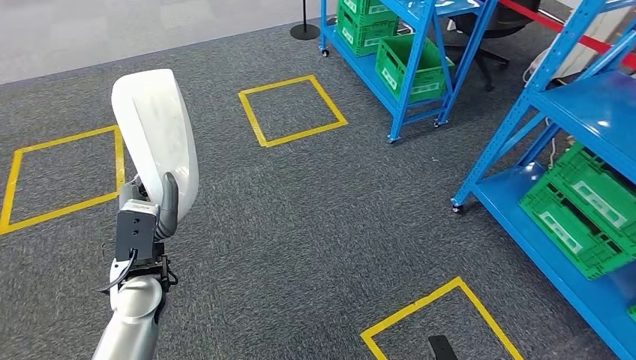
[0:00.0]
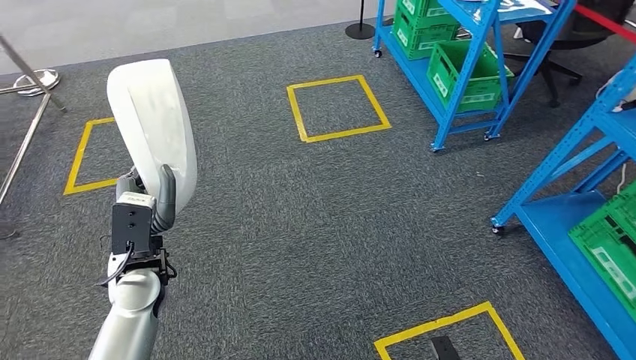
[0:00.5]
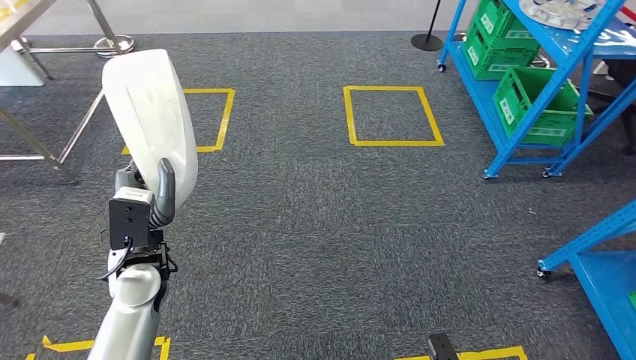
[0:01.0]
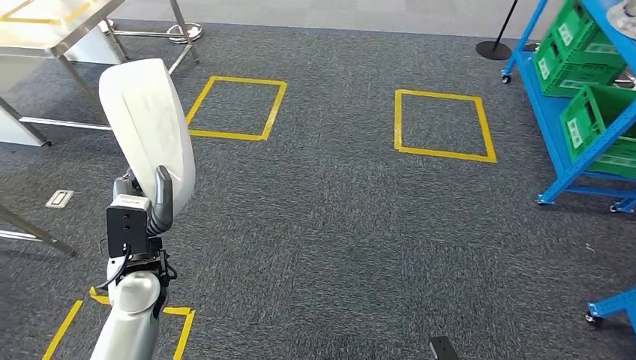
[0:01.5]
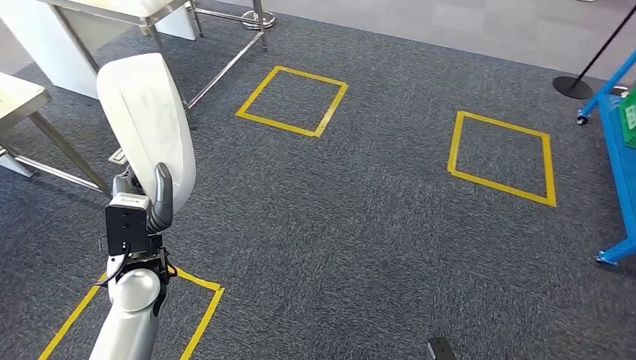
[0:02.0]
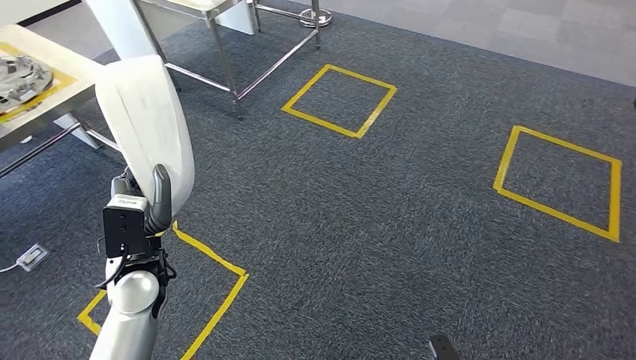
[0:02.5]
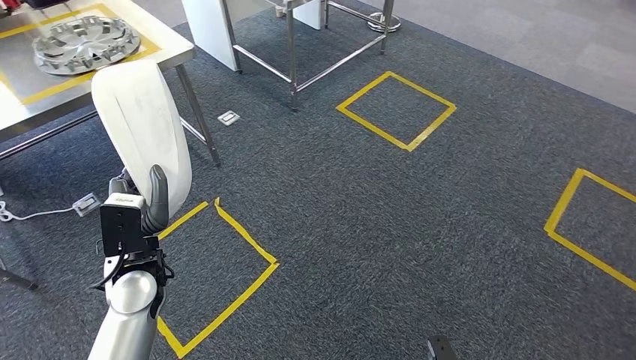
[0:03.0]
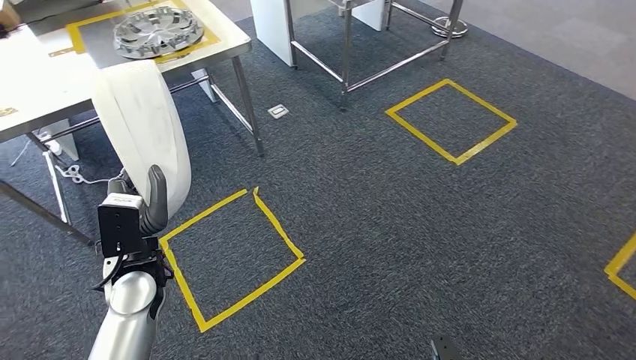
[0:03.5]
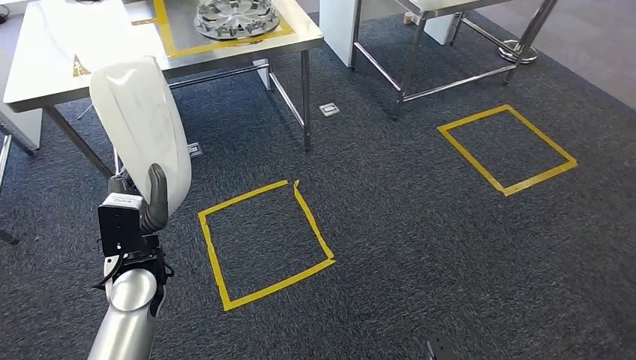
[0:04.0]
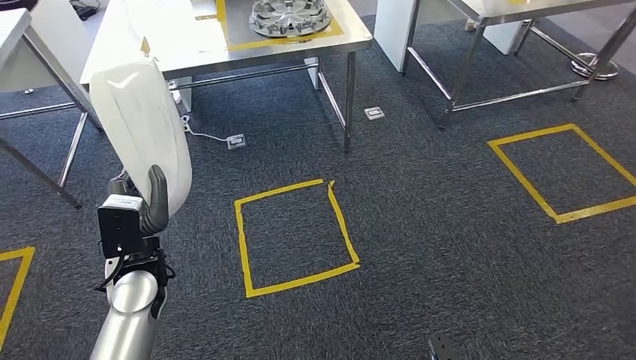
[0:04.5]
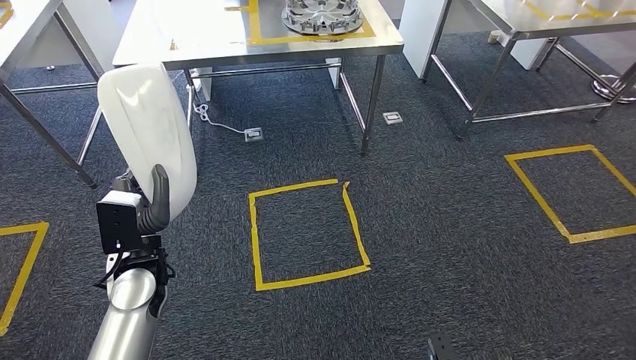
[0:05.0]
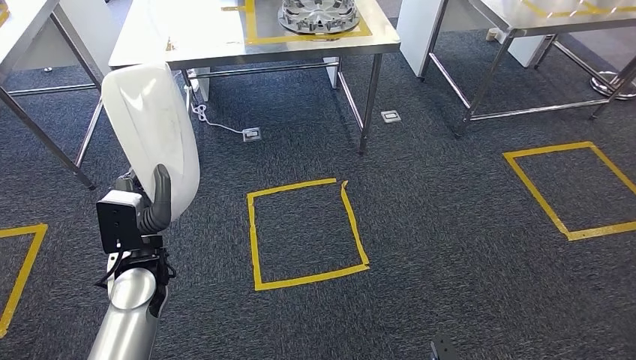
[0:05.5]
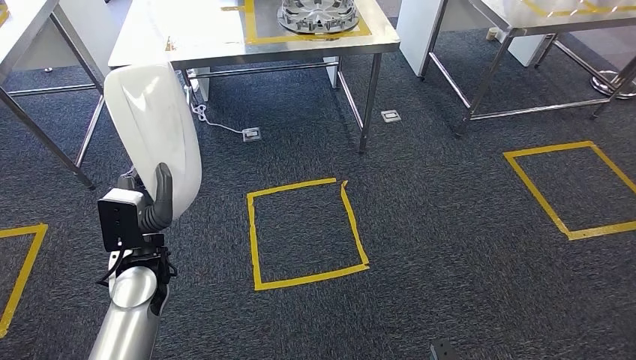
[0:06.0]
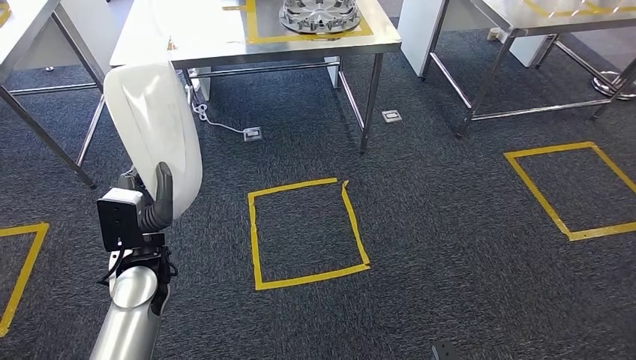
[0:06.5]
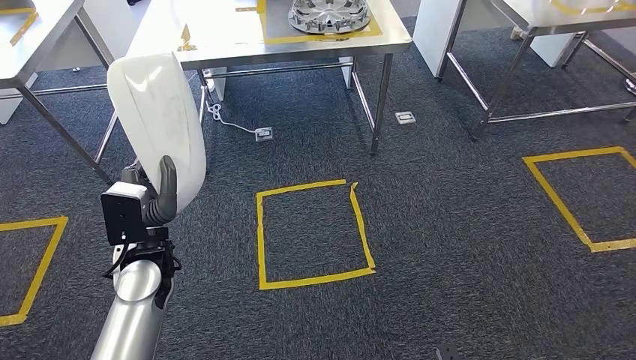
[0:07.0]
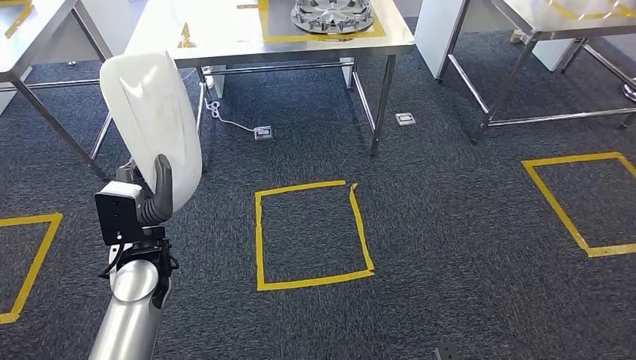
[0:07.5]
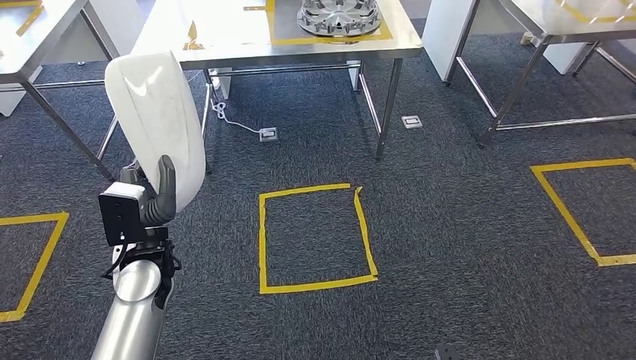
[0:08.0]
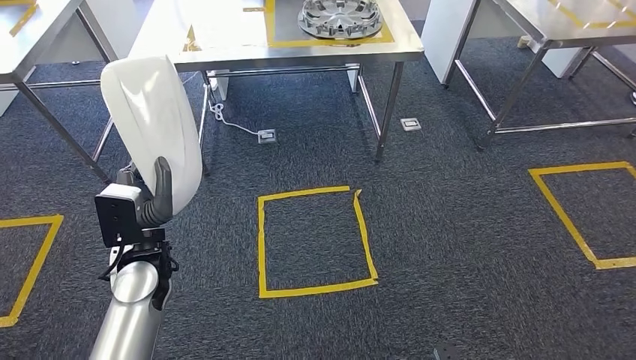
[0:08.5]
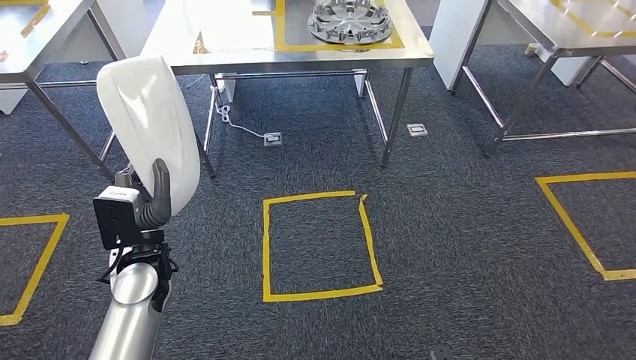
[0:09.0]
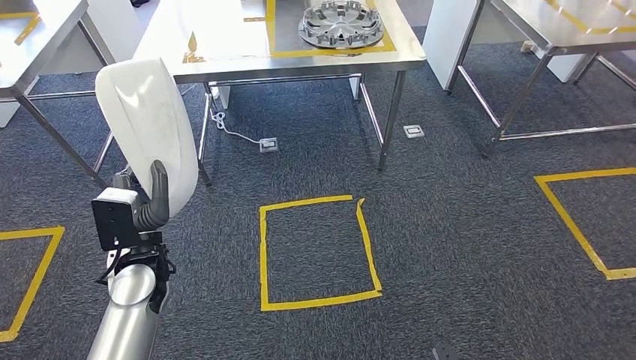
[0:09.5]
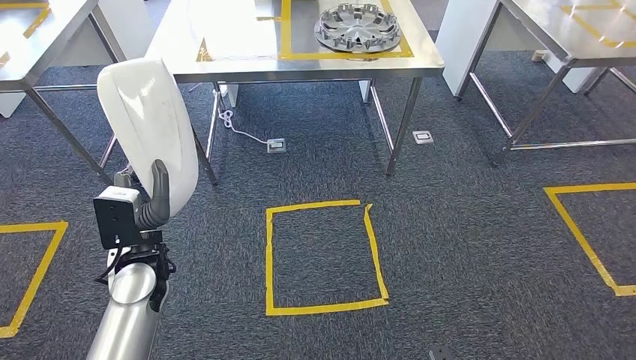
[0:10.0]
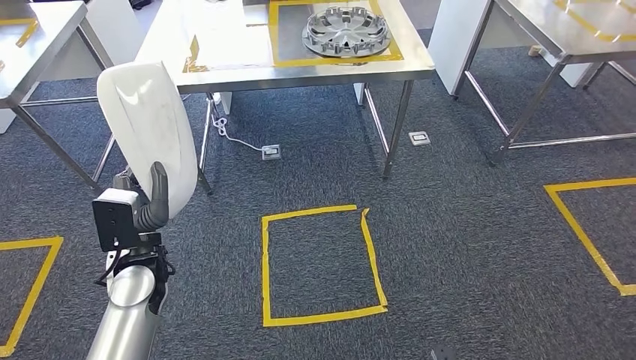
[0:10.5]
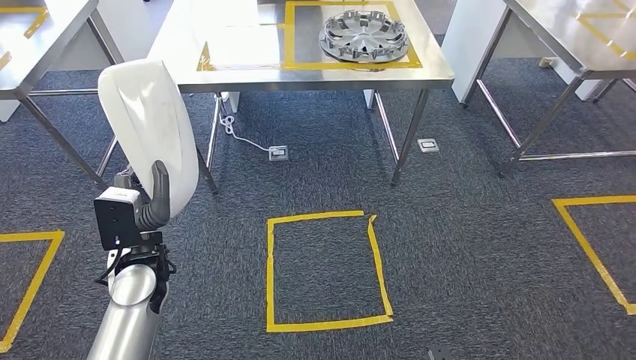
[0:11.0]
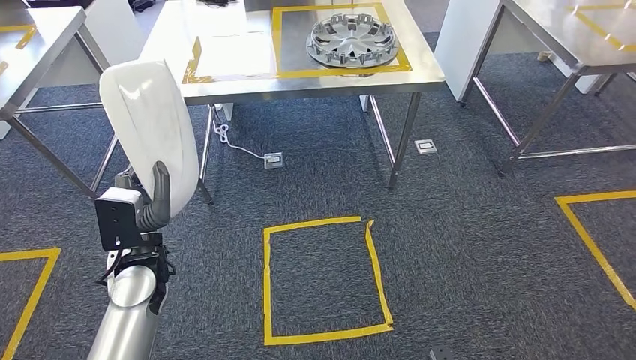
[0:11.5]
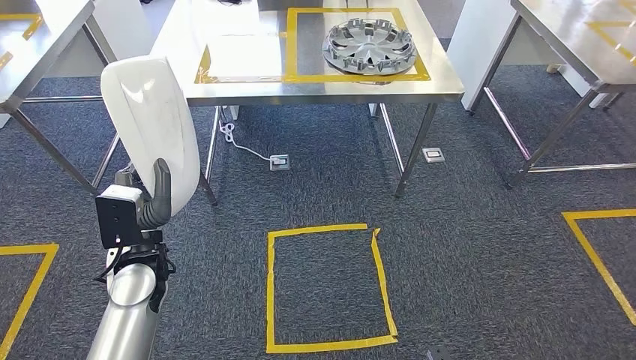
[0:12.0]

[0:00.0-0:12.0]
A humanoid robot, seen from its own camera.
Step, 0:00.0 to 0:05.0: Move the large material to the workbench.

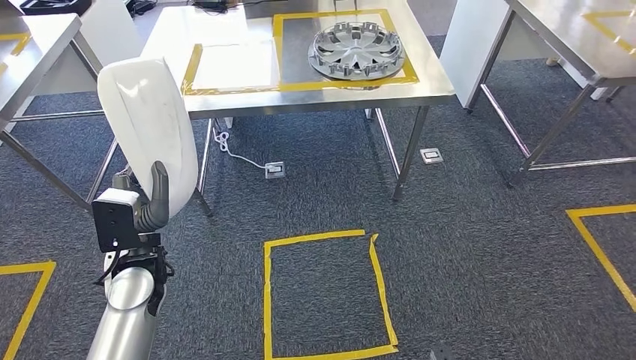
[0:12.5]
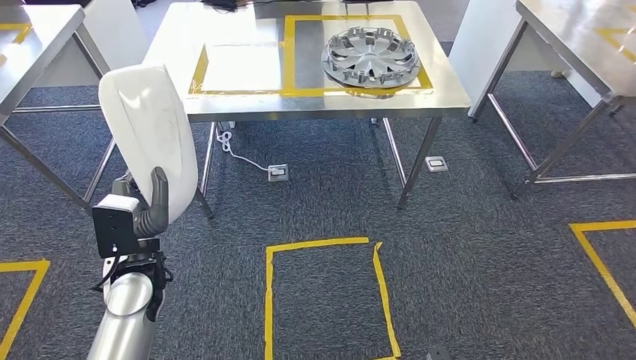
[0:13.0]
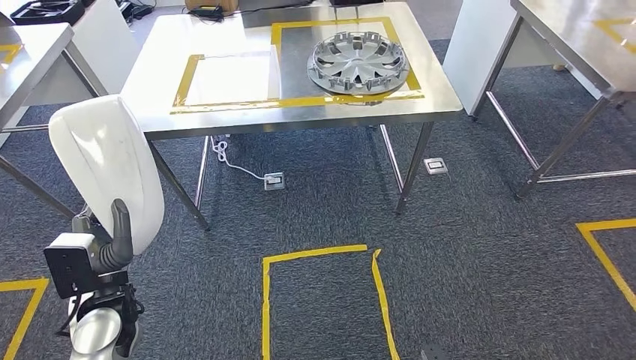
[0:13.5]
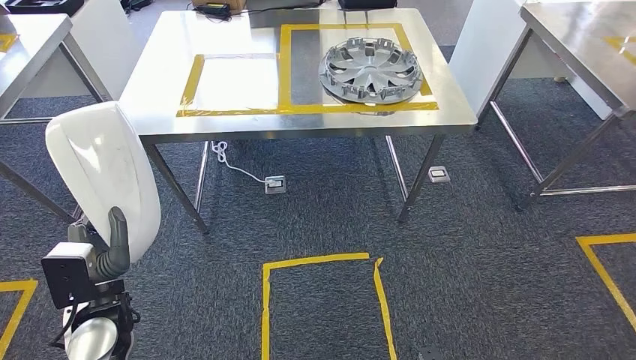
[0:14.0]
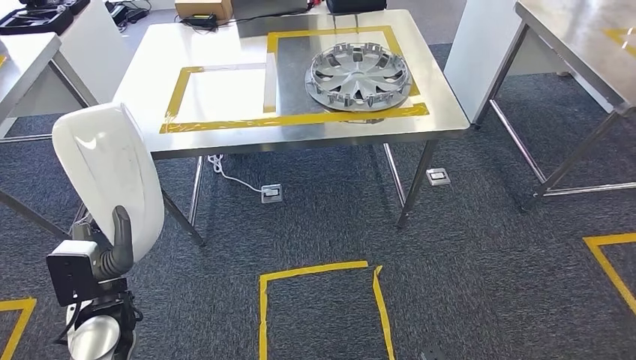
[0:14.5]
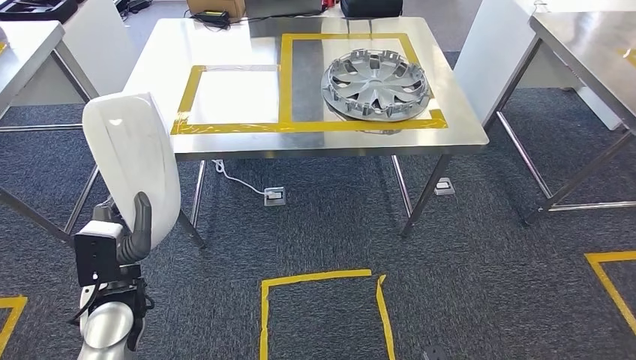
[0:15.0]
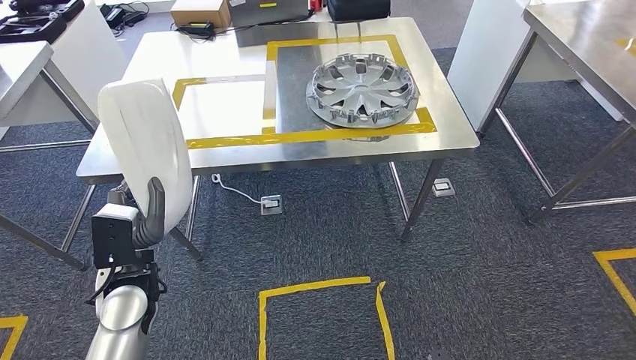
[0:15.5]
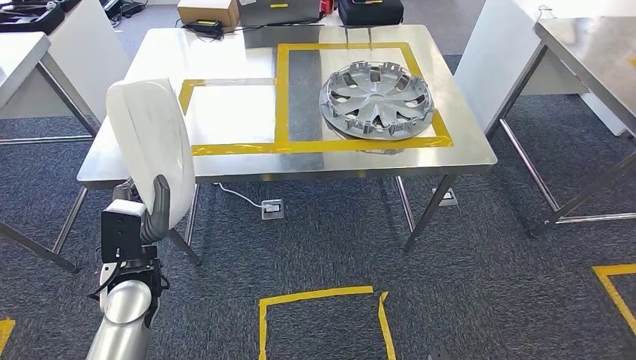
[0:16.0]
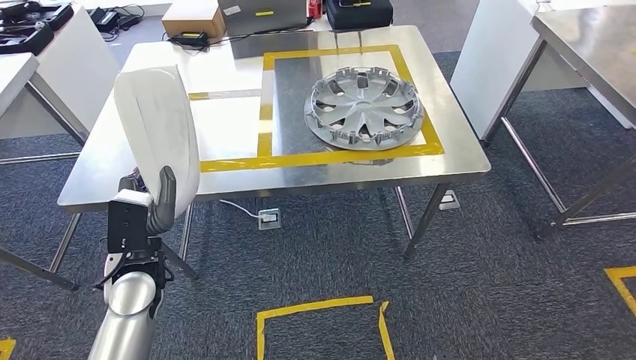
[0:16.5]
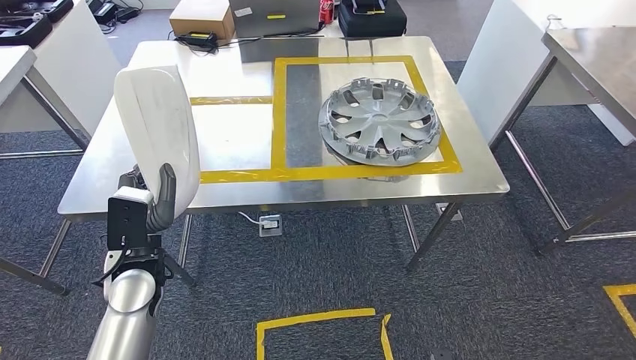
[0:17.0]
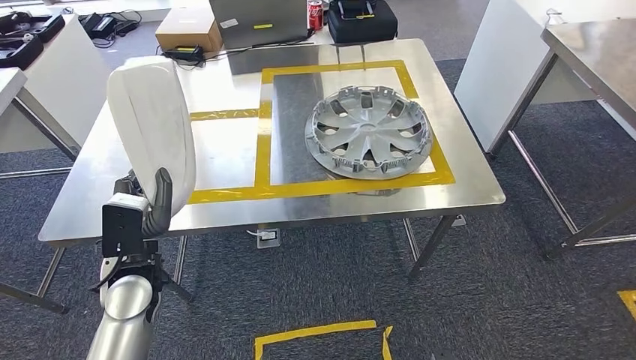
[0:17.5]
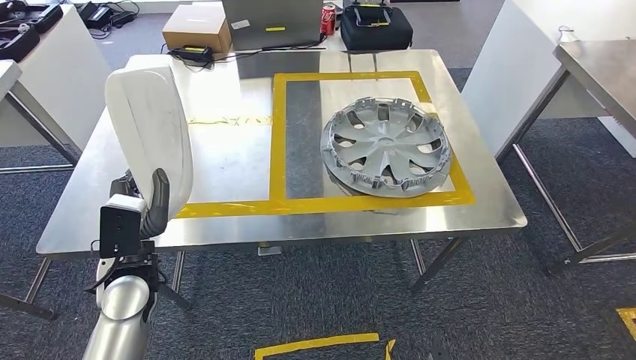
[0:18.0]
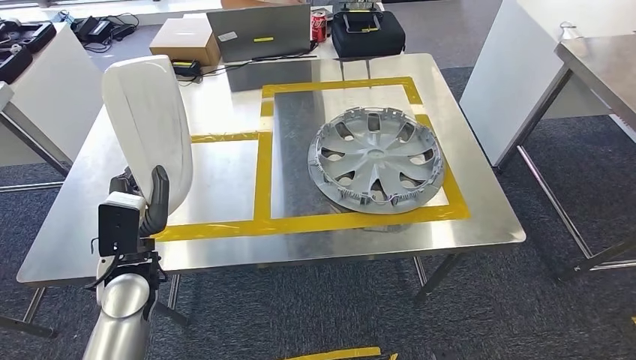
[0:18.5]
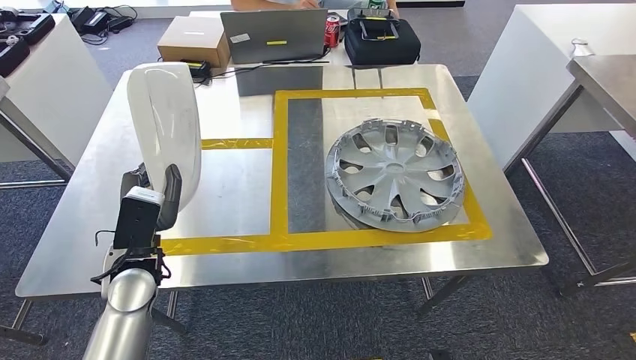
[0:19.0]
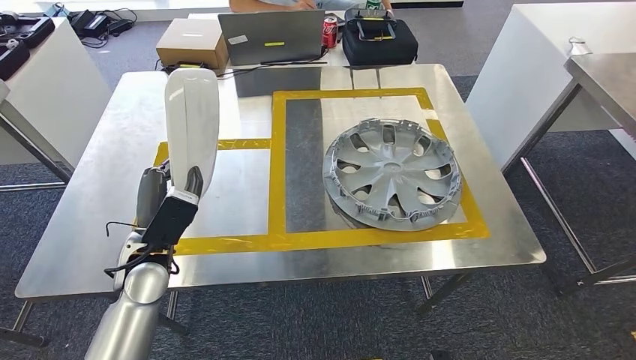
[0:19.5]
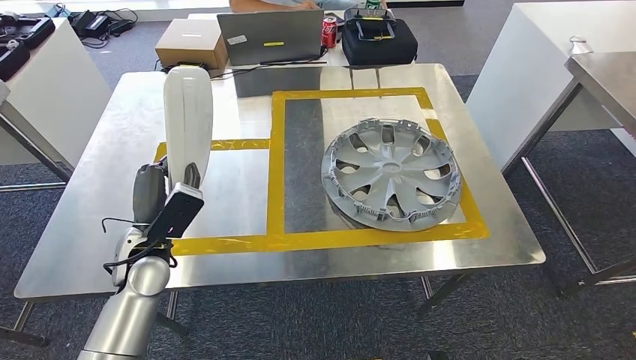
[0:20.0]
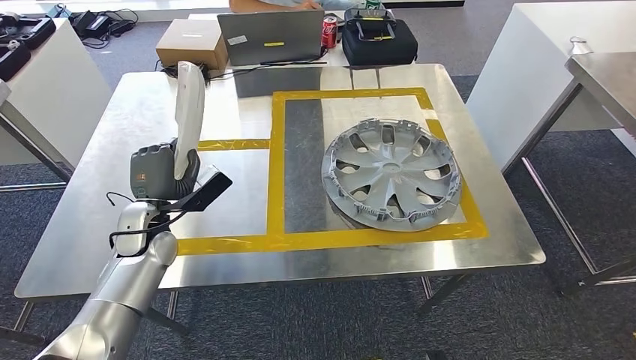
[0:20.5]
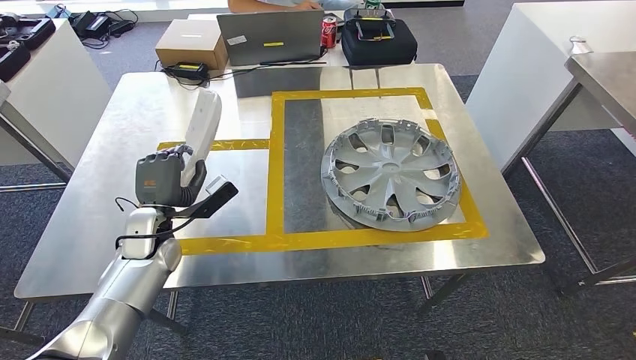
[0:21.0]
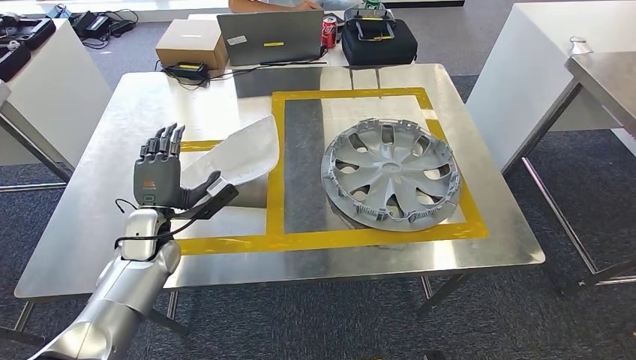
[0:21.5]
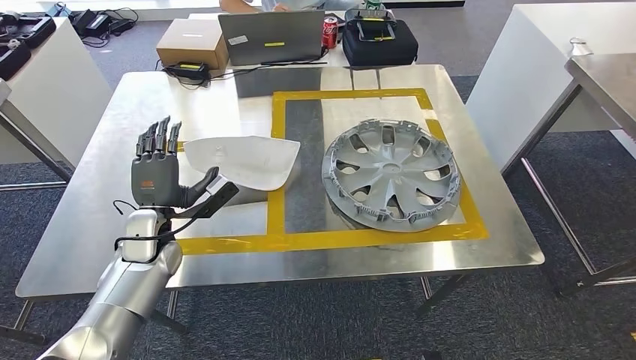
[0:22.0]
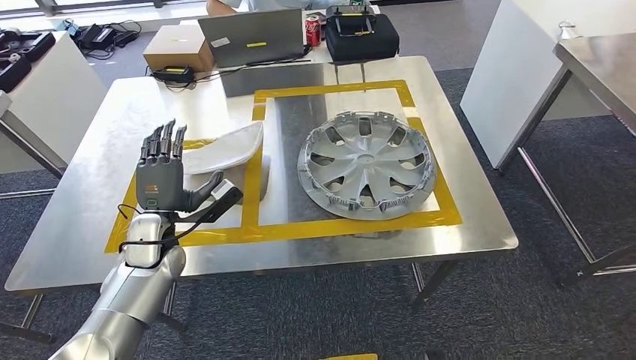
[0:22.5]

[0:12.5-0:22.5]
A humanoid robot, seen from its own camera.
Step, 0:12.5 to 0:22.0: Insert the large material into the corresponding slot on the workbench.
